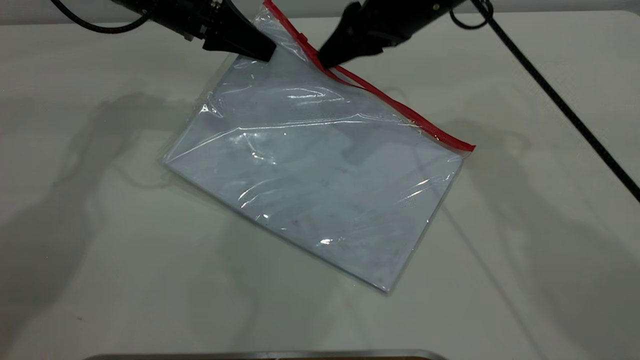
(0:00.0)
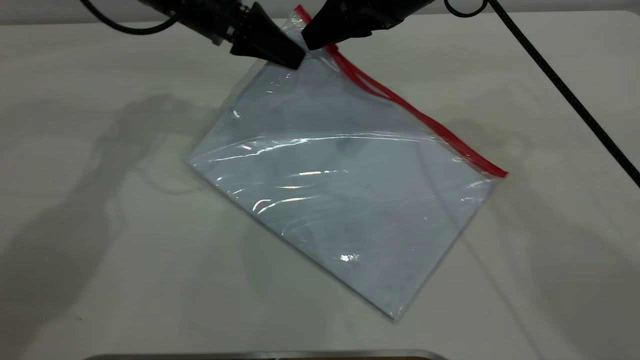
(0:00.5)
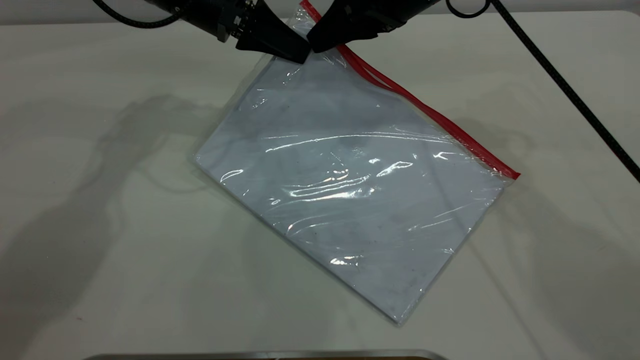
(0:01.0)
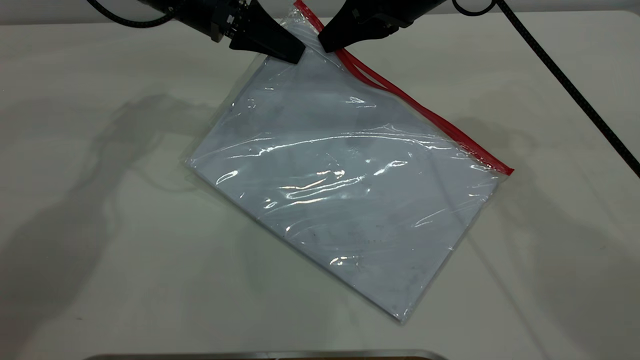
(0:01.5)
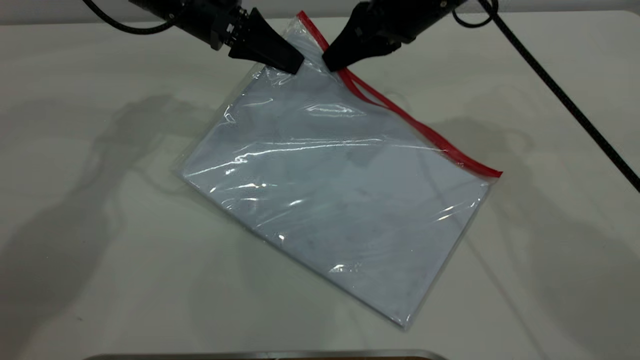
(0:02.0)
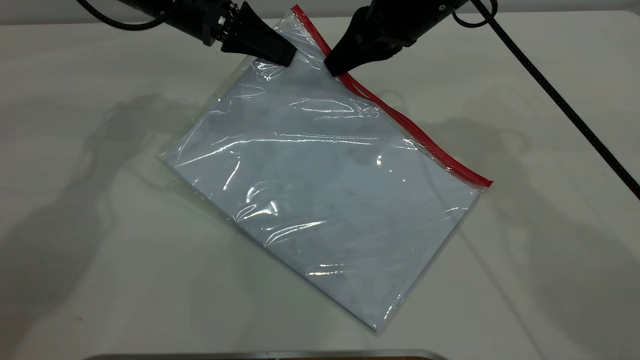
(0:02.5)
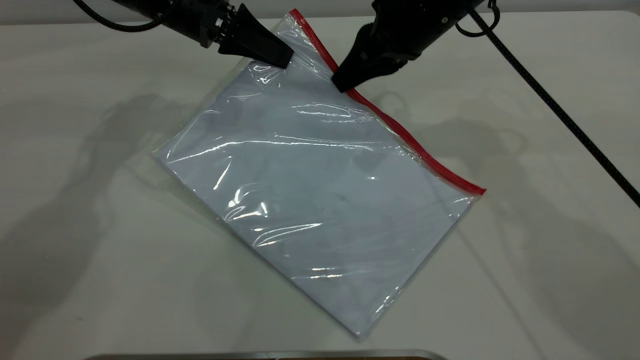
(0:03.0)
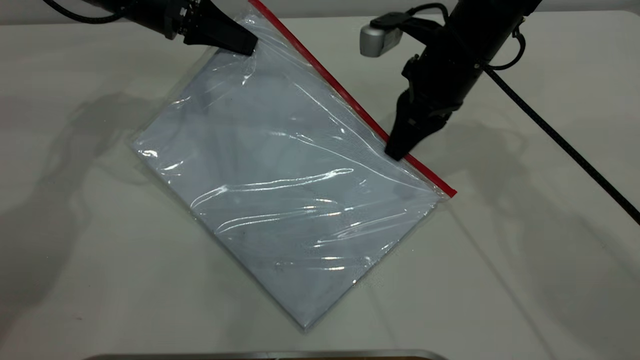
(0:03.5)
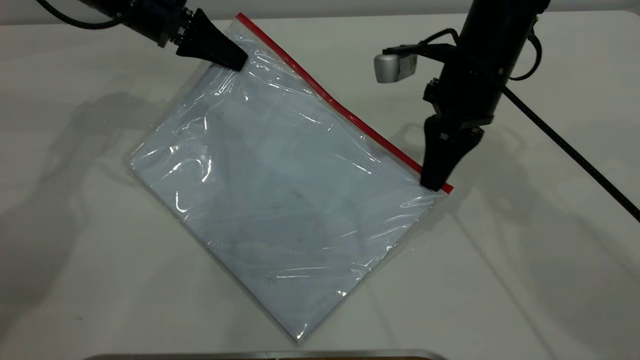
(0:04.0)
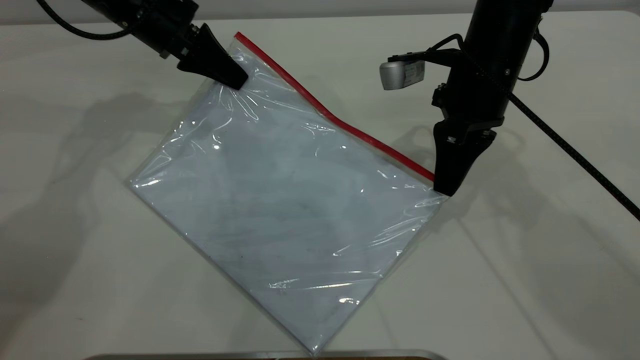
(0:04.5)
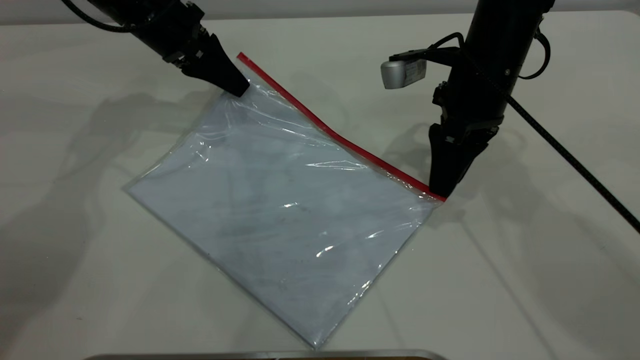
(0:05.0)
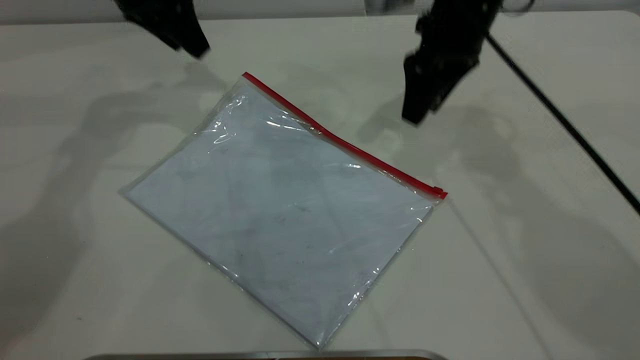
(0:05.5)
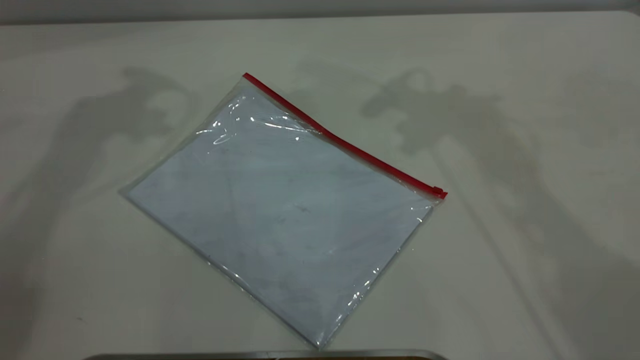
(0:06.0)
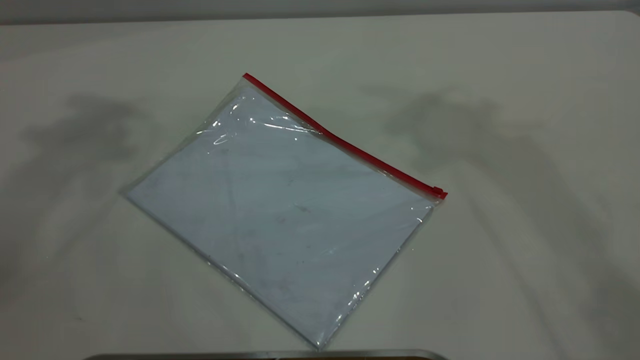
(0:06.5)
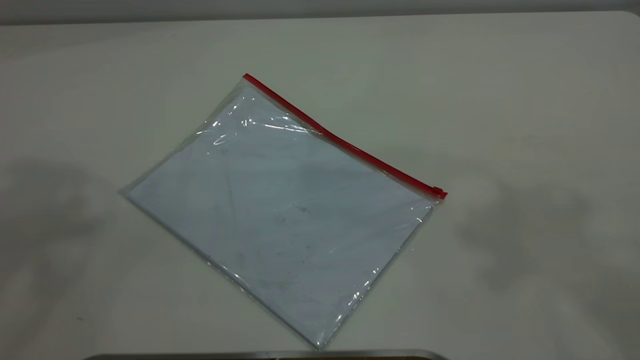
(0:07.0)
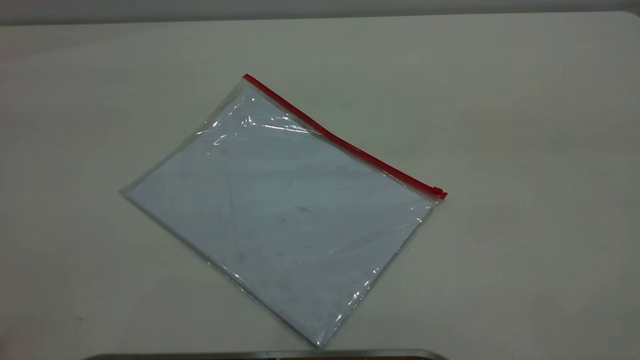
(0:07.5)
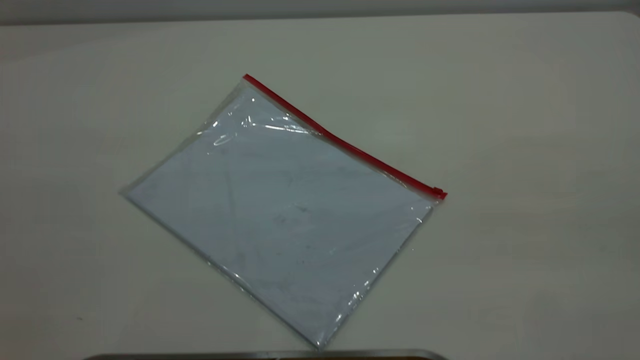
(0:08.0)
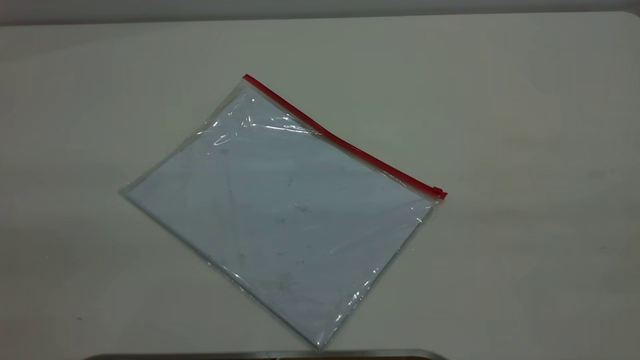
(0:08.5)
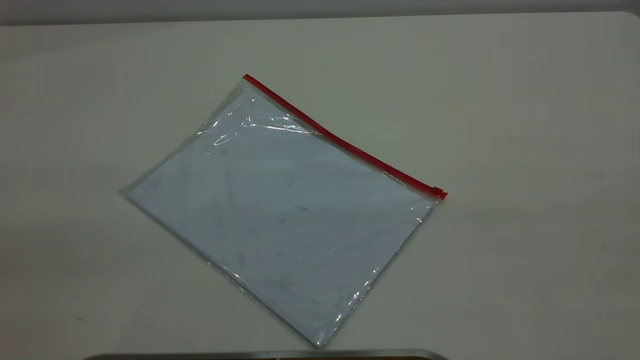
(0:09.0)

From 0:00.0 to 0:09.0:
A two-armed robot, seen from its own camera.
Step, from 0:00.0 to 0:05.0: Pulling up the zipper on the transparent plastic bag with the right gripper to close it.
From 0:00.0 to 0:02.0: The right gripper closes.
From 0:02.0 to 0:04.5: The right gripper travels downward by some 5 cm. The left gripper shifts some 5 cm to the left.
From 0:04.5 to 0:07.0: The left gripper is displaced upward and backward by approximately 50 cm, and opens its fingers. The right gripper is displaced upward by about 50 cm, and opens up.
